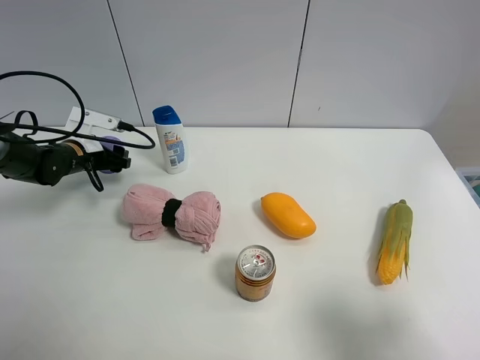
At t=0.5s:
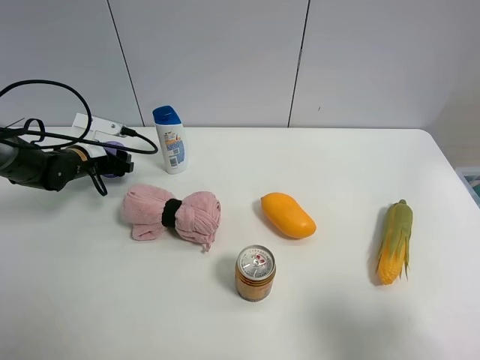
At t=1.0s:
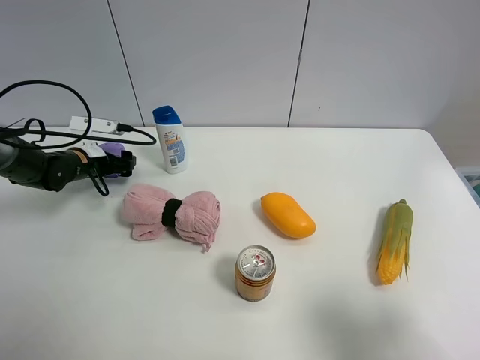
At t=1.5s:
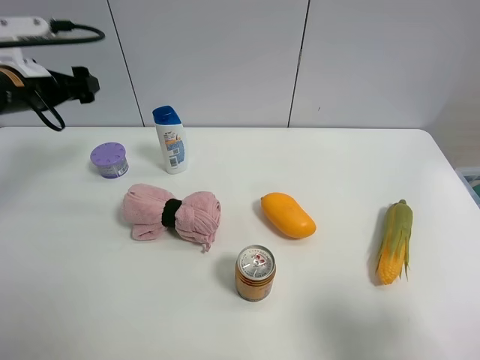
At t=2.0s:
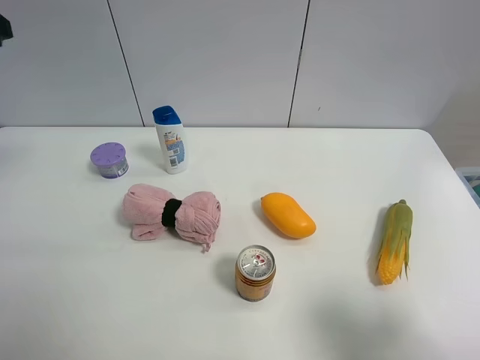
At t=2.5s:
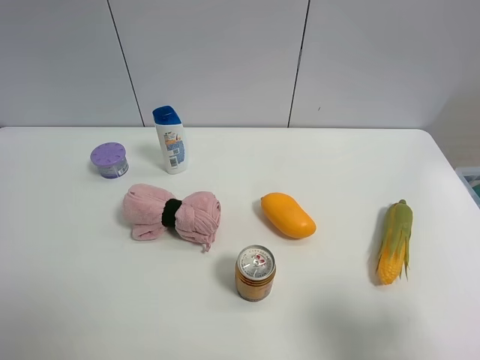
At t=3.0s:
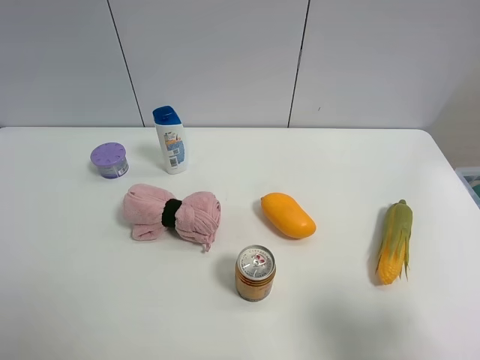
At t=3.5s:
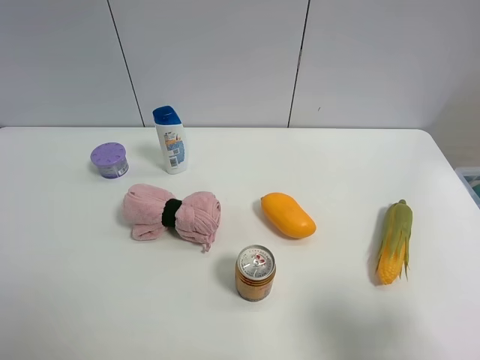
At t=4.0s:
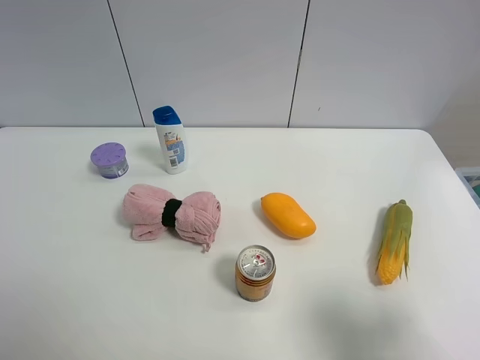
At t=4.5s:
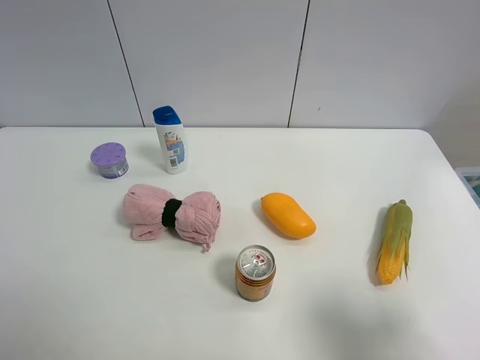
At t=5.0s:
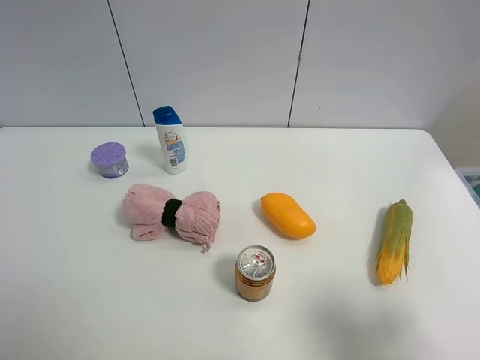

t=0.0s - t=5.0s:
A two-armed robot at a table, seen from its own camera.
Task of the whole recording: the gripper move the object.
t=0.0s - t=2.5s: The left gripper shifts about 40 cm upward and backward, and opens its fingers.

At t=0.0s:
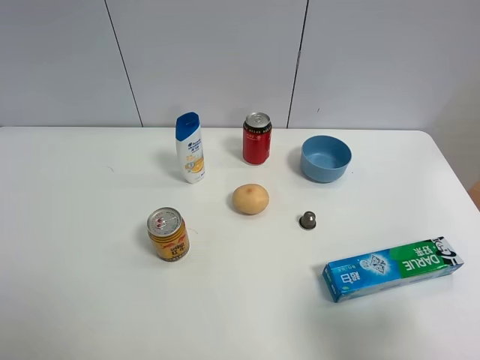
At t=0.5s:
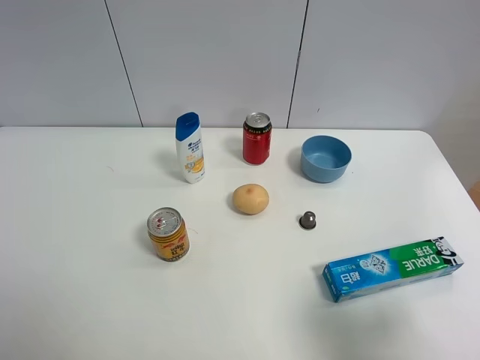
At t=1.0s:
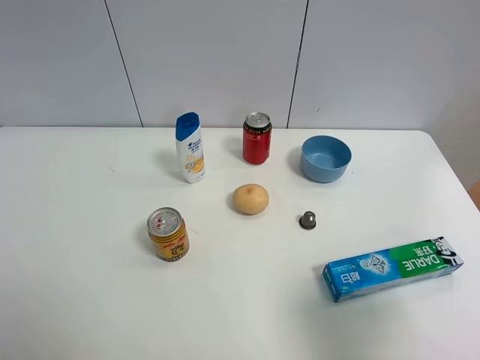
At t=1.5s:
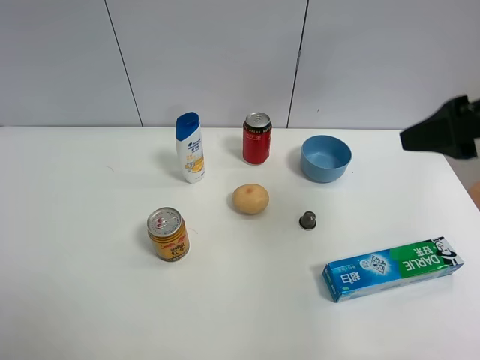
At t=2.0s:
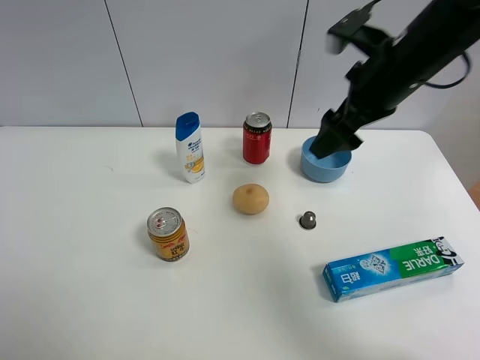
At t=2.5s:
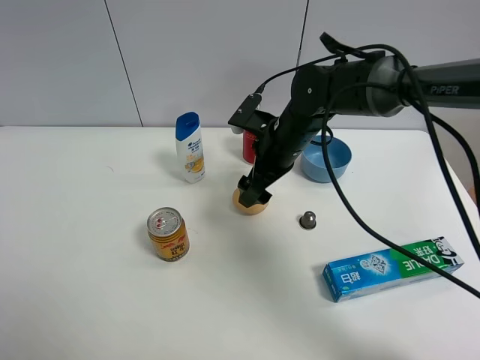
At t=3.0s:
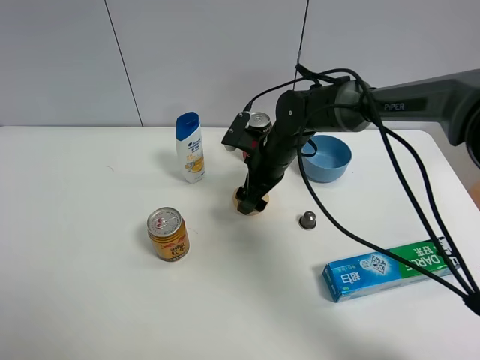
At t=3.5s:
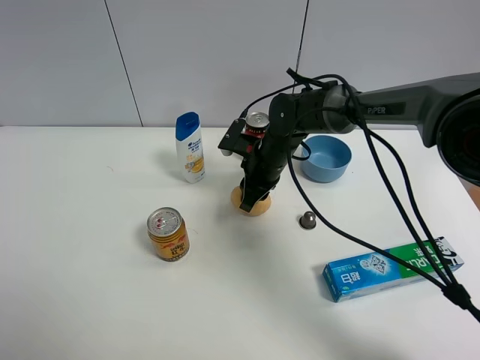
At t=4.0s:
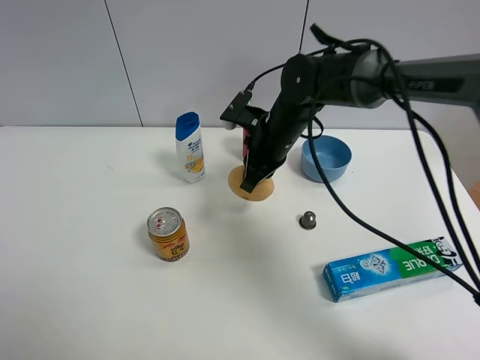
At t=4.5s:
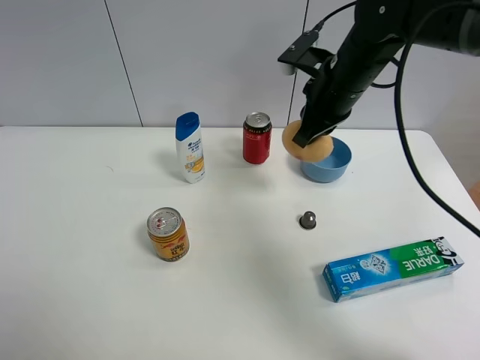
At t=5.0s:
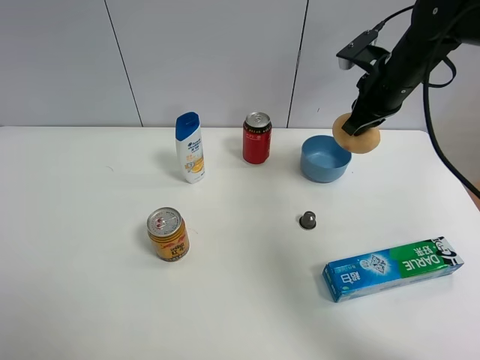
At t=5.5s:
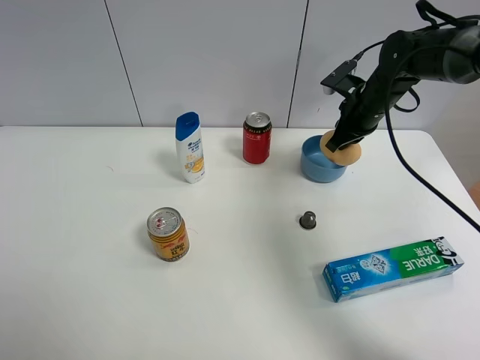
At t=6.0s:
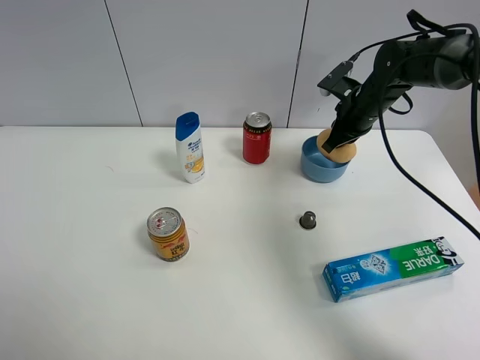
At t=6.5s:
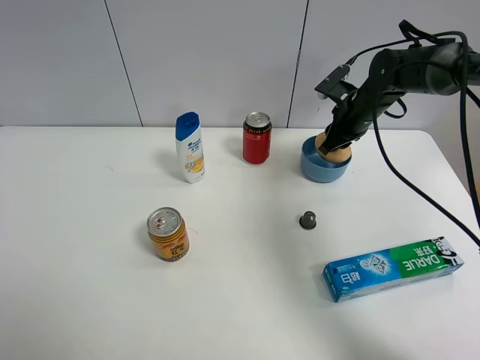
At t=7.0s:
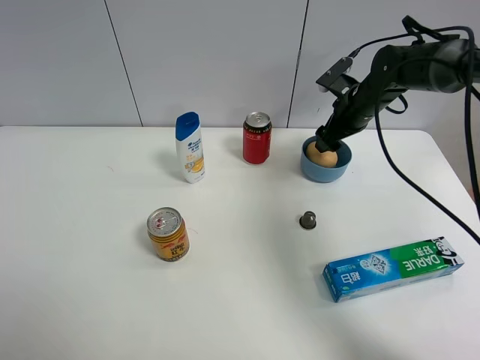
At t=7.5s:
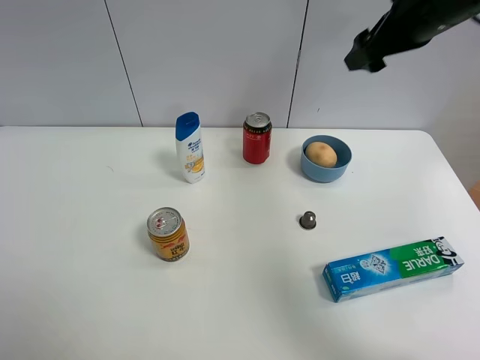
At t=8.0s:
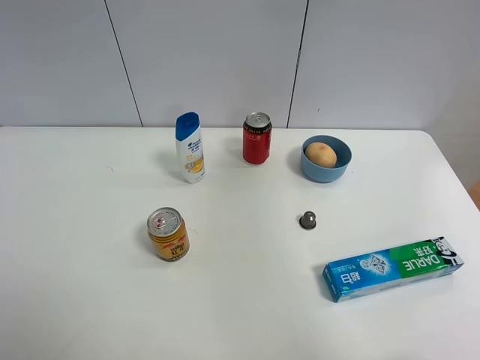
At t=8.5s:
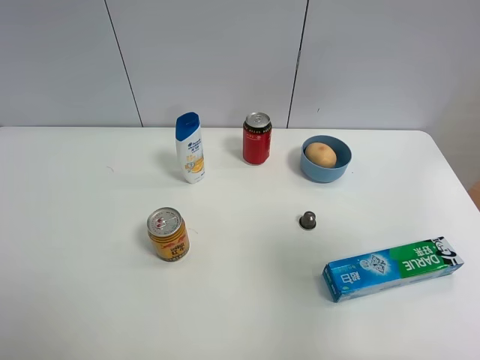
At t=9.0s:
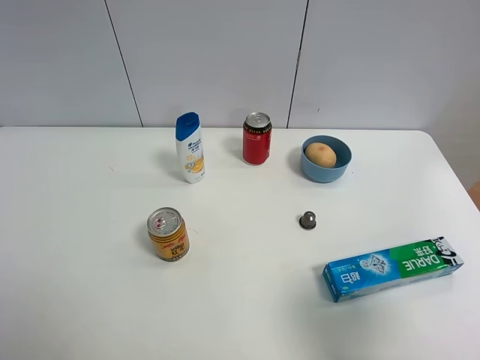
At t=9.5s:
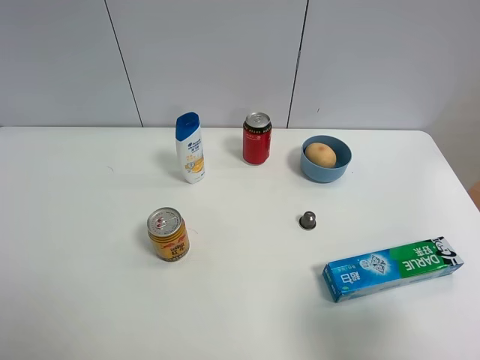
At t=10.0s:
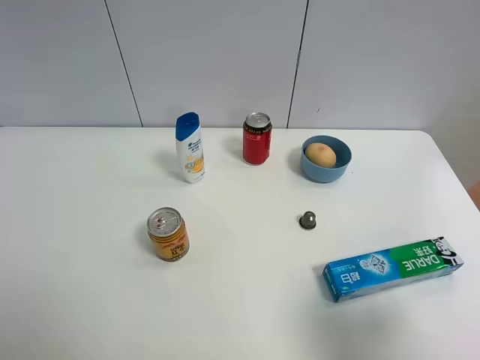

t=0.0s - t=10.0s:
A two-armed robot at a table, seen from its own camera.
Task of the whole recording: the gripper move the object.
Step, t=0.0s - t=3.5s: Grasp the egg yolk pastry with the right gripper.
Step, t=4.0s - t=6.5s: Place the egg yolk pastry into the blue bowl with the right gripper.
t=0.0s - t=2.0s: The right gripper heads forward, covering roughly 30 cm.
t=2.0s - t=4.0s: The right gripper shifts some 20 cm downward and to the left, and closes its fingers.
t=4.0s - t=6.0s: The right gripper shifts about 15 cm to the right and forward.
t=6.0s - t=8.0s: The right gripper heads upward and backward, covering roughly 40 cm, and opens up.
t=8.0s - t=10.0s: The right gripper is displaced downward and backward by about 30 cm.

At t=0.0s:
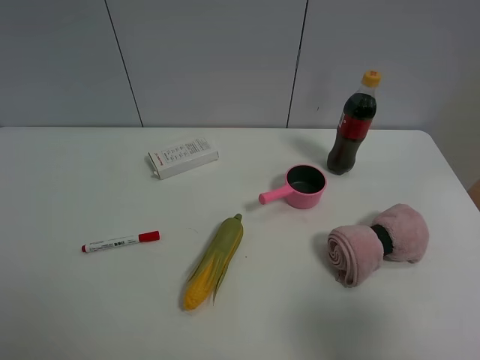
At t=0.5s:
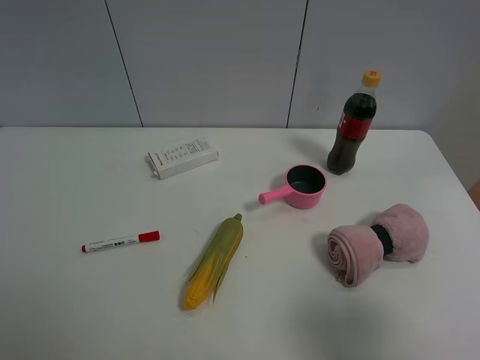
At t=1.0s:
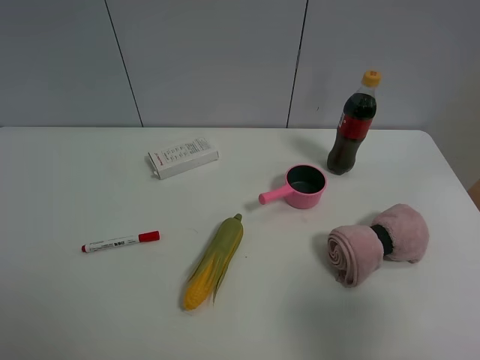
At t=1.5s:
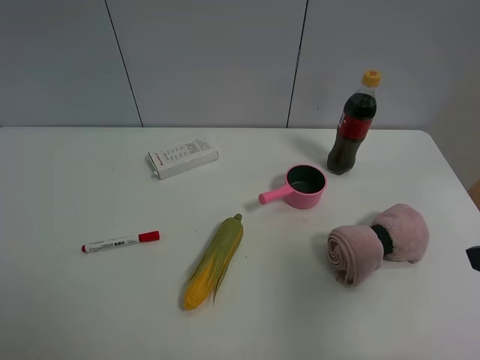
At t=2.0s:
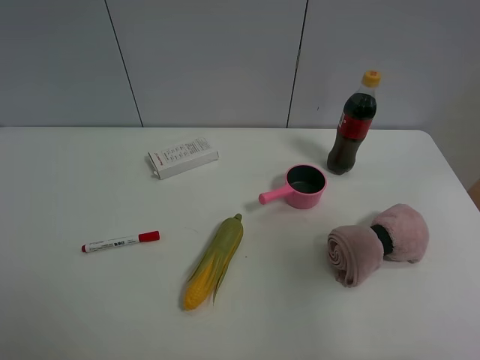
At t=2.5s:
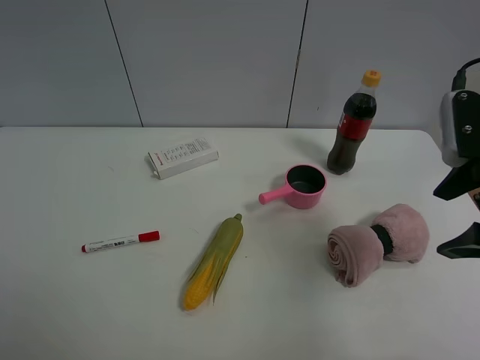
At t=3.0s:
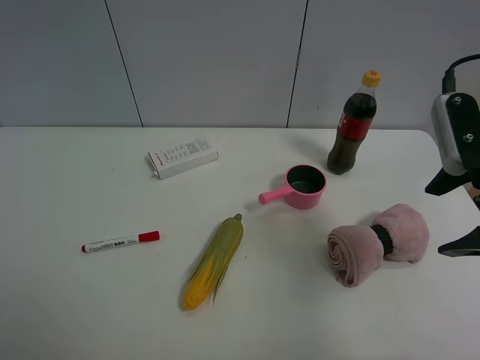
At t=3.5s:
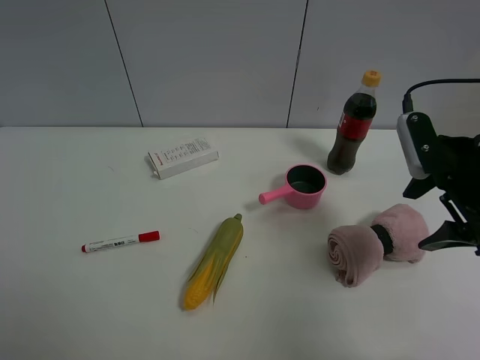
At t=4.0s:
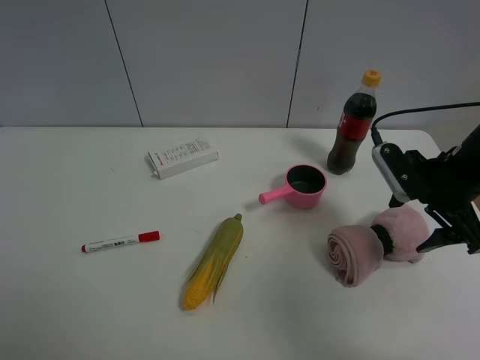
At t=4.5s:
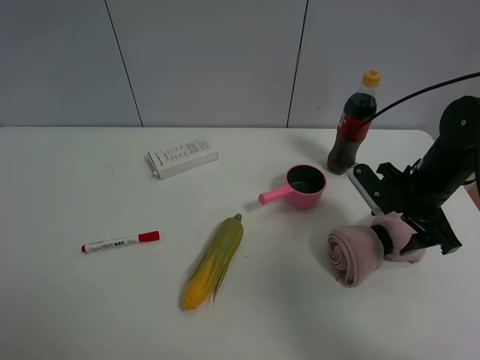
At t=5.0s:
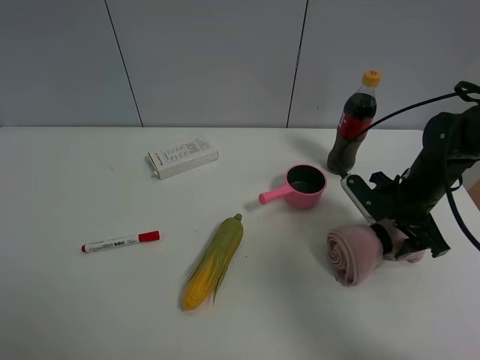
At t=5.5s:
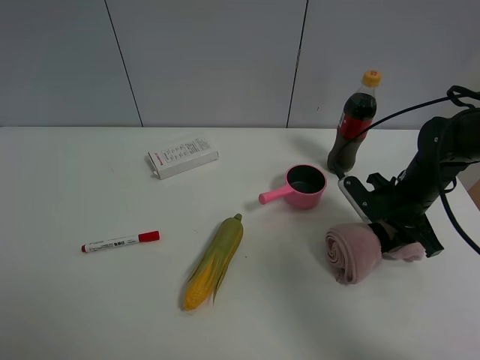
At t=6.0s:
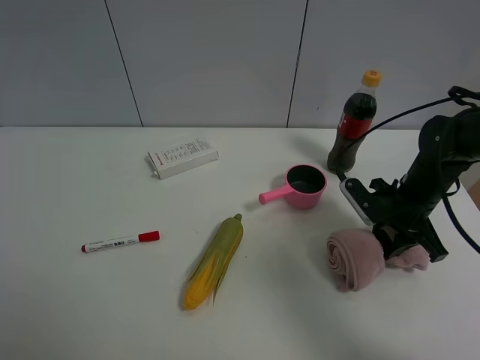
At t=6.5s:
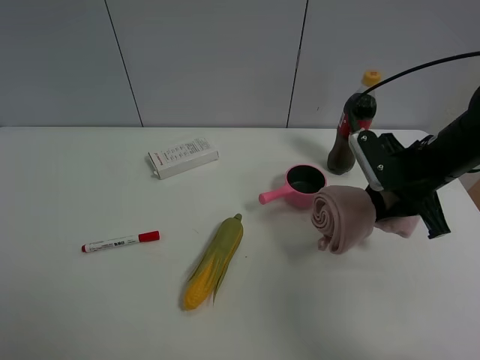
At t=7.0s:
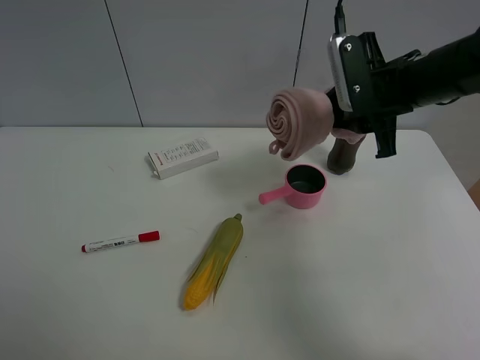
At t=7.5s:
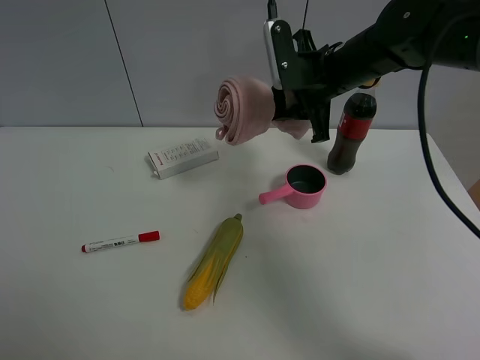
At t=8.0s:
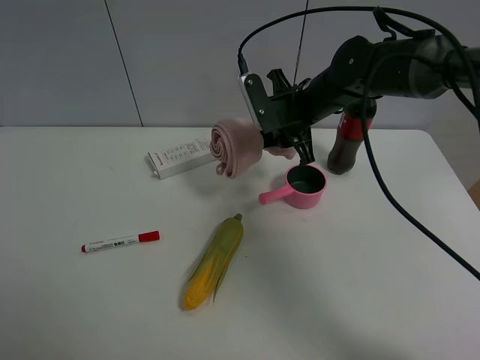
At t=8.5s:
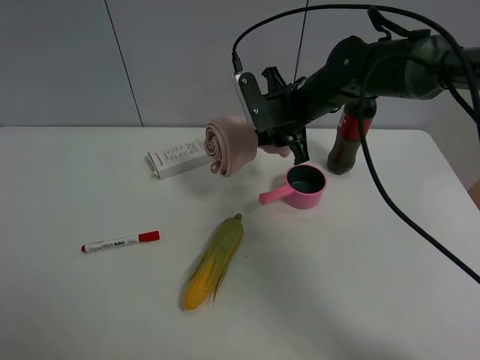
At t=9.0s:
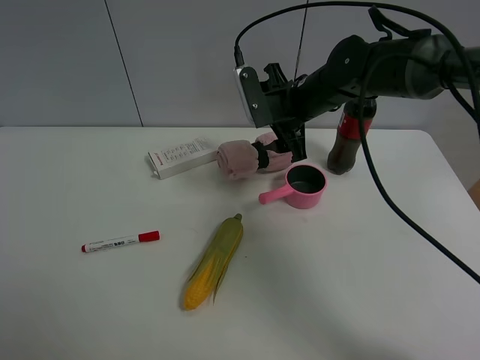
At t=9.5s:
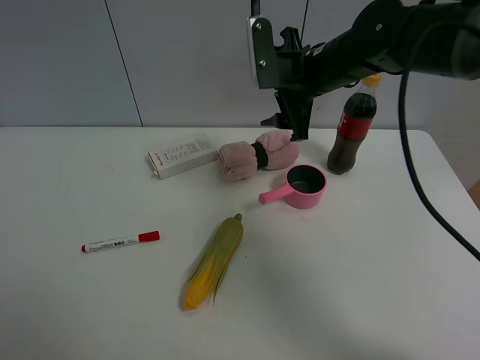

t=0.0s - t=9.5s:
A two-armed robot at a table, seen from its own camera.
Task of the whole recording: the gripper move the object.
Step, t=0.0s - t=5.5s: Grasp the pink towel with the right gripper.
Step, t=6.0s - t=9.0s: Place the pink towel on the table with the right gripper.
t=0.0s - t=2.0s: The right gripper heads forward, covering approximately 15 cm.
t=2.0s - t=4.0s: The right gripper travels forward and downward by about 15 cm.
t=4.0s - t=5.5s: The right gripper travels downward by some 10 cm, and closes its fingers.
t=5.5s - t=7.5s: The right gripper travels to the left, upward and forward by approximately 20 cm.
t=7.5s - t=9.5s: The right gripper opens up.

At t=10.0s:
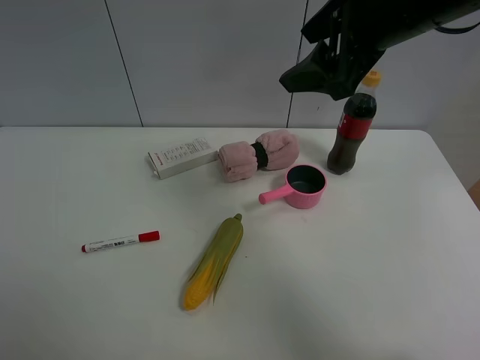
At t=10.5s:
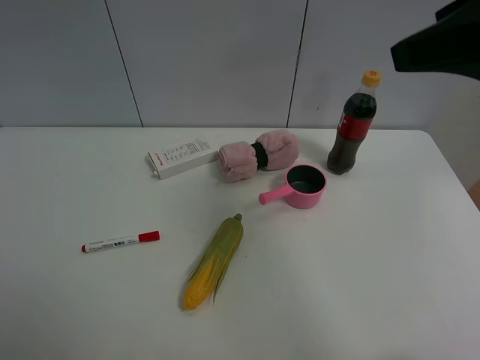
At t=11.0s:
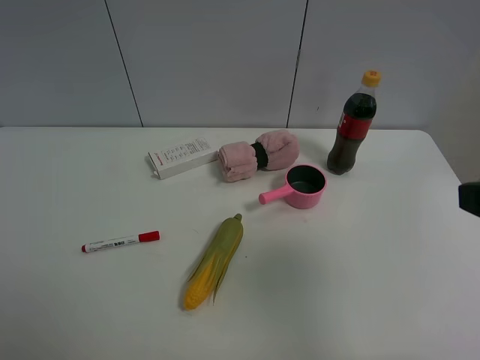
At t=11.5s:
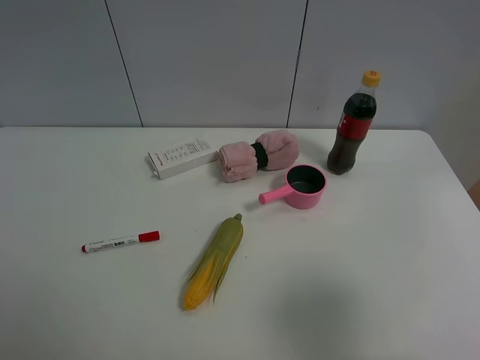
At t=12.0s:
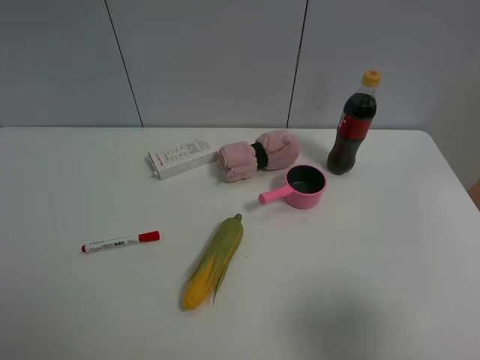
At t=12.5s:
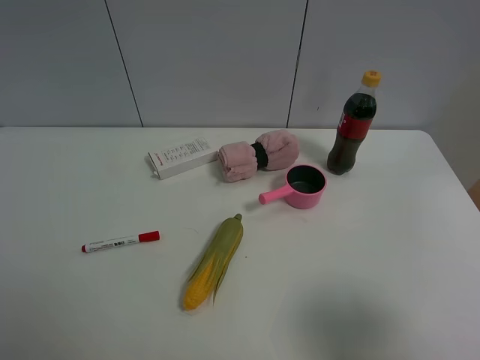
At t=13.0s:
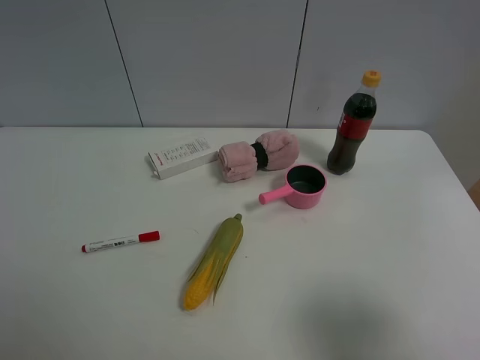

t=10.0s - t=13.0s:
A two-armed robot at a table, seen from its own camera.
Task of the whole recording: the gripper move the object.
t=10.0s - t=11.5s: The right gripper shifts about 30 cm backward and to the right.
t=11.5s - t=13.0s: The grippers stay close to where they were, moving slightly.
